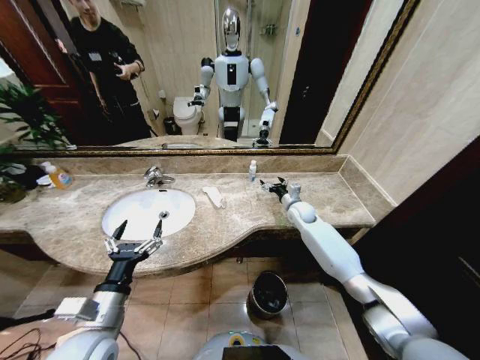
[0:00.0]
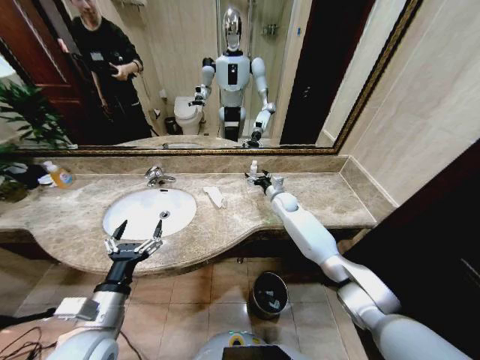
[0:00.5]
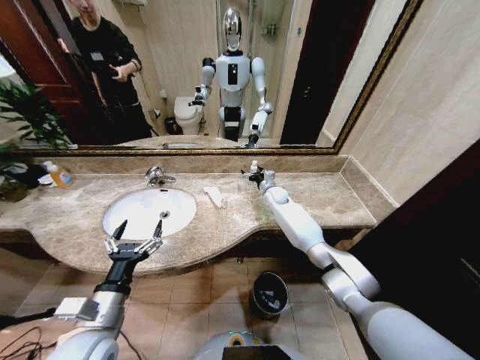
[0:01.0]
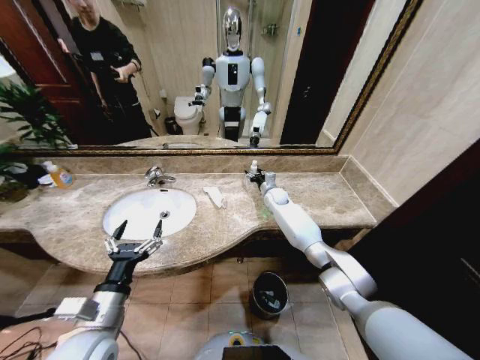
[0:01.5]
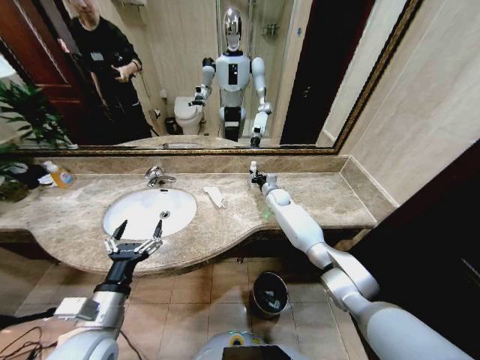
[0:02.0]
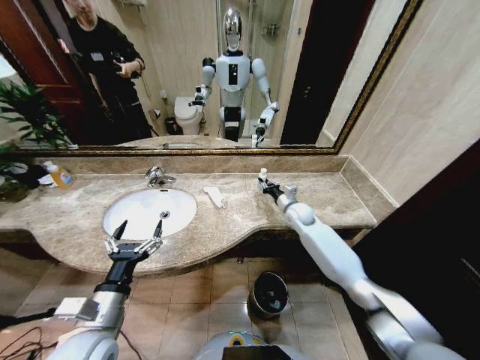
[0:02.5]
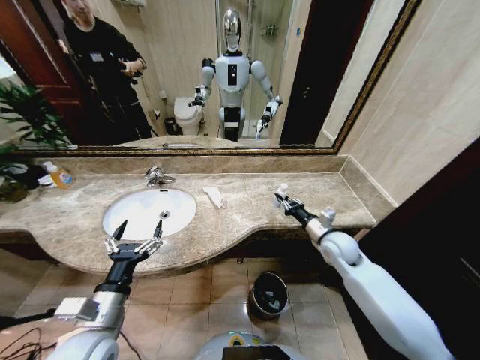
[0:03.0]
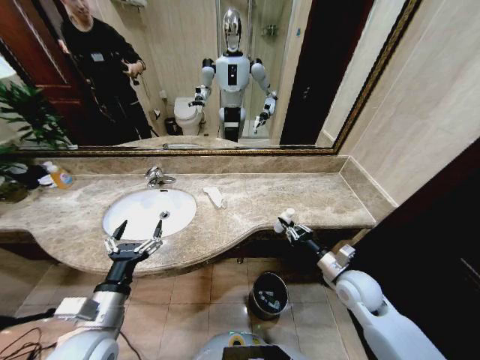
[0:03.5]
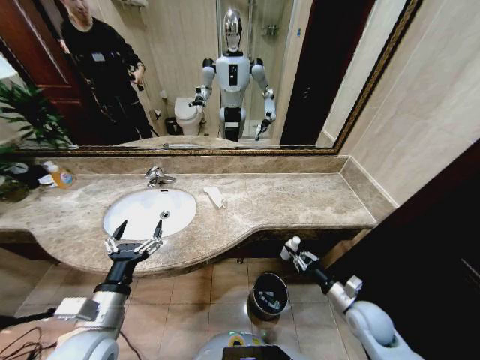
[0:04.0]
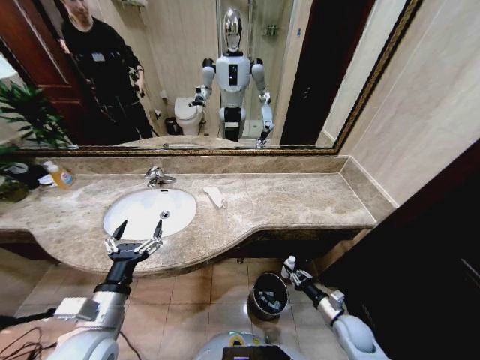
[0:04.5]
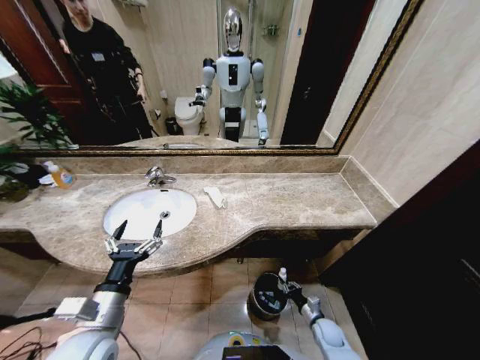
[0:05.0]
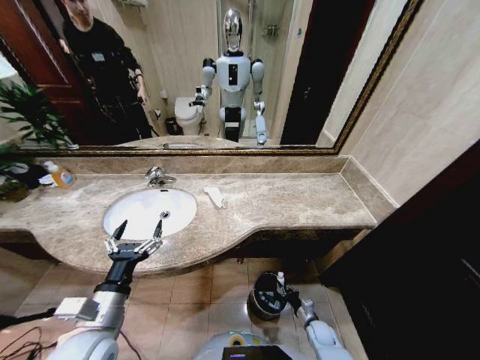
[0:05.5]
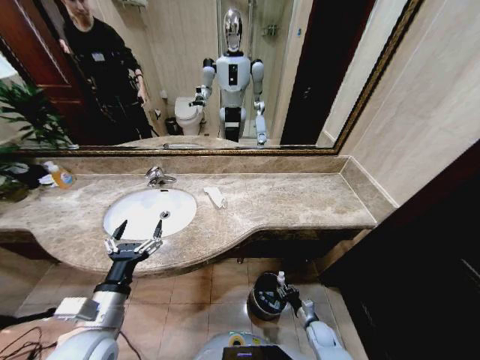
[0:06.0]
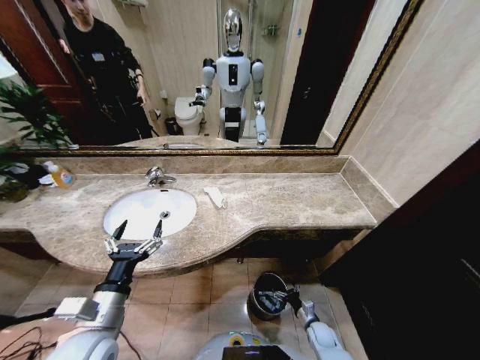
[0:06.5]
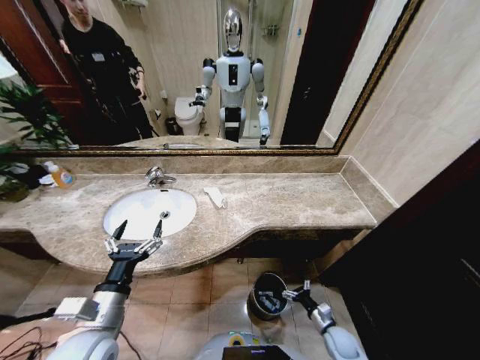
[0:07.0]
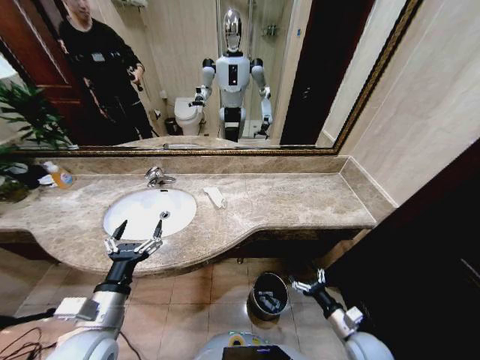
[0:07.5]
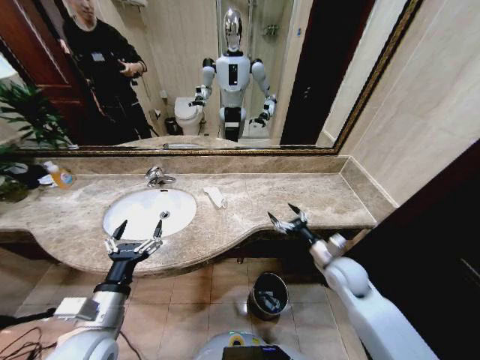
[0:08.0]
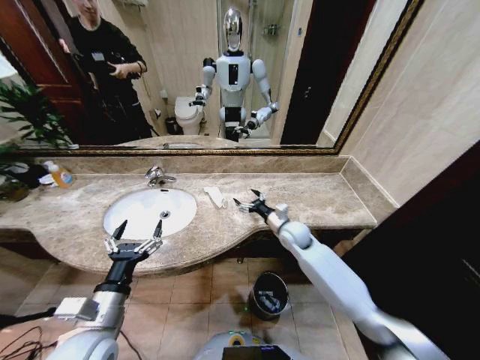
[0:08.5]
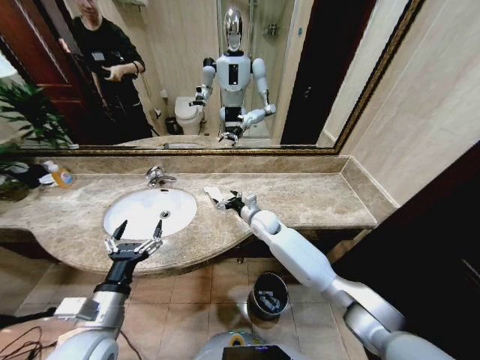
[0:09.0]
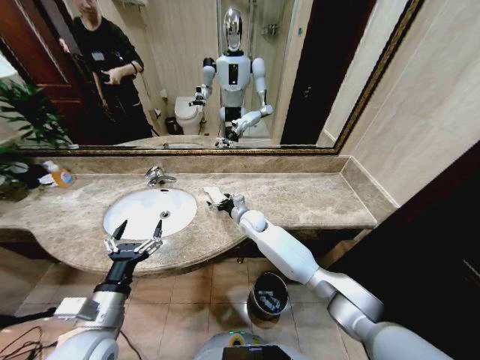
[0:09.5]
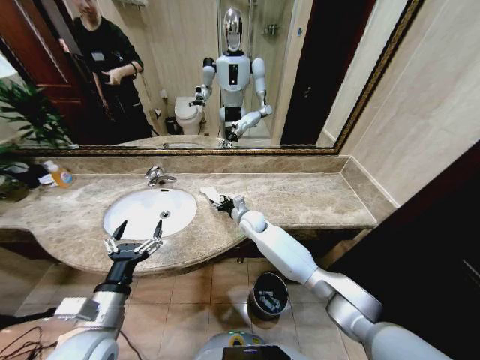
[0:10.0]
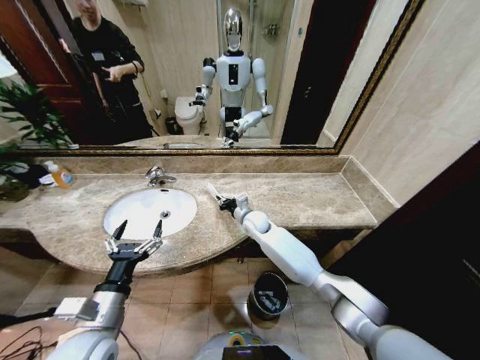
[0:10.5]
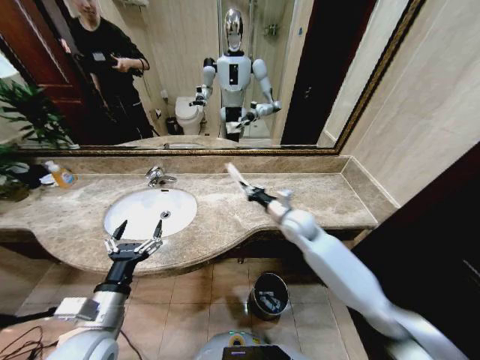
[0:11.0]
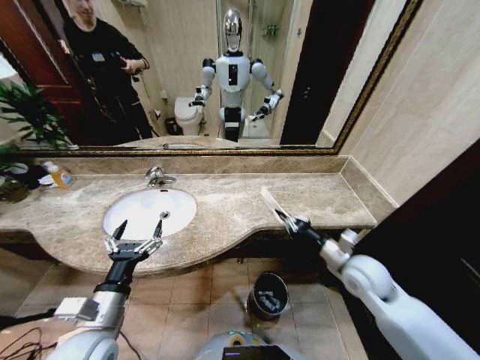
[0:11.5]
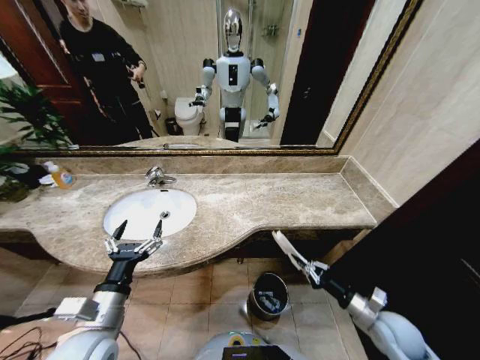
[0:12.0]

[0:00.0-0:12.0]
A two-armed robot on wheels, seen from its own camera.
Task of the whole recording: Pick up the trash from the sink and place it in the trash bin.
0:00.0 to 0:02.0: The right gripper travels forward and to the left by about 10 cm, and closes its fingers.
0:02.0 to 0:04.0: The right gripper shifts about 40 cm backward and to the right.
0:04.0 to 0:06.0: The right gripper heads downward, covering about 25 cm.
0:06.0 to 0:08.0: The right gripper travels upward by approximately 30 cm, and opens its fingers.
0:08.0 to 0:10.0: The right gripper shifts about 30 cm to the left and forward, and closes its fingers.
0:10.0 to 0:12.0: The right gripper goes some 50 cm to the right and backward, and closes its fingers.

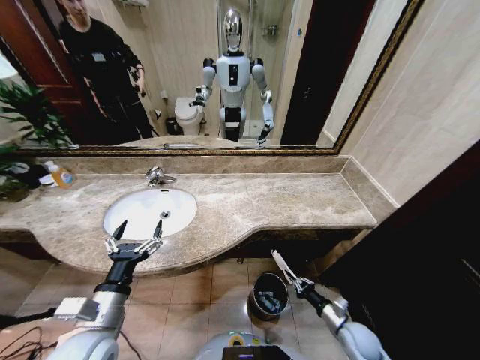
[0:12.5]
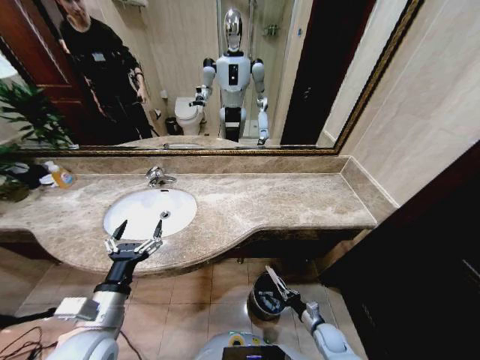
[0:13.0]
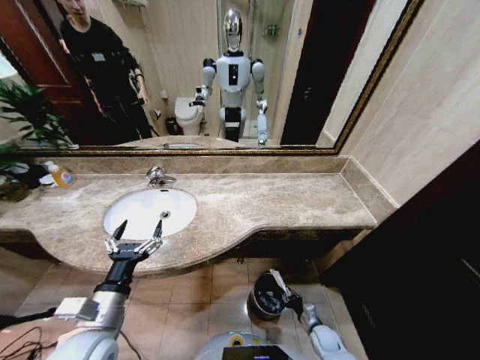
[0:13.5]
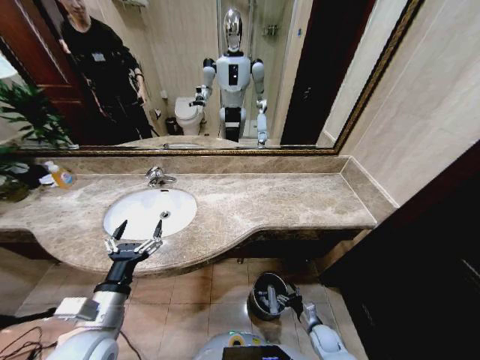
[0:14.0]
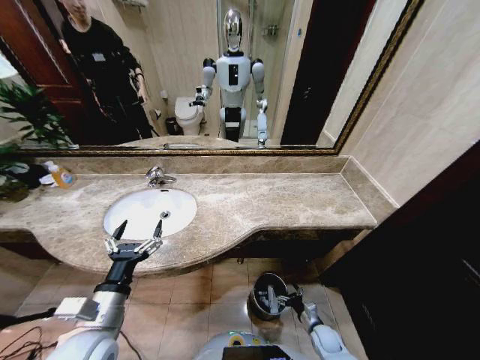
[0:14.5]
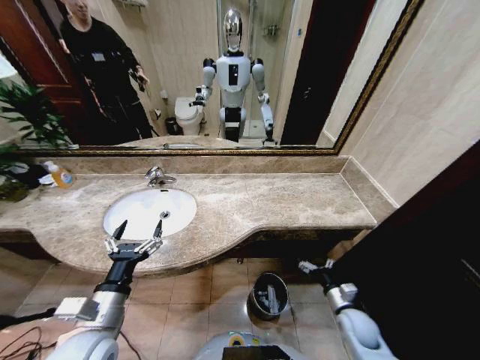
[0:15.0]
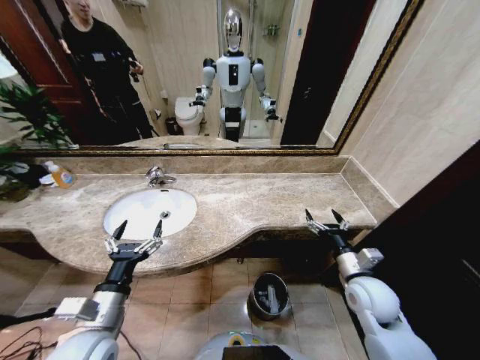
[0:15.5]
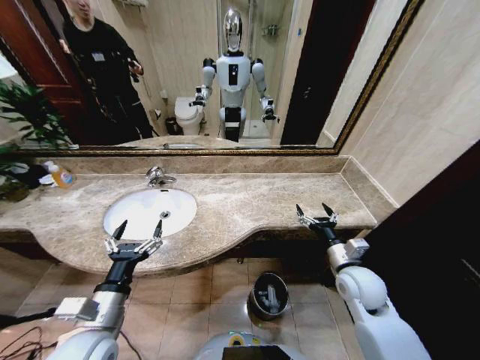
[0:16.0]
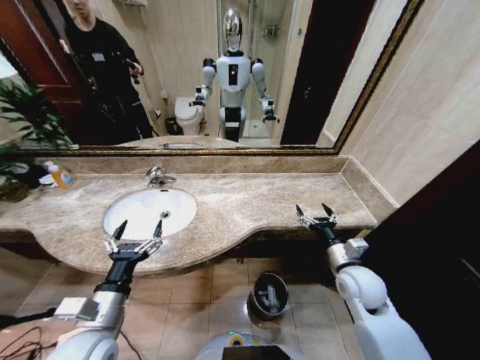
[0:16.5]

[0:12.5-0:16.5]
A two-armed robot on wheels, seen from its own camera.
Task of the whole recording: Pick up the trash from the sink and place it in the trash bin.
0:12.5 to 0:14.5: The right gripper heads downward, covering approximately 10 cm, and opens its fingers.
0:14.5 to 0:16.5: The right gripper shifts roughly 35 cm upward.
